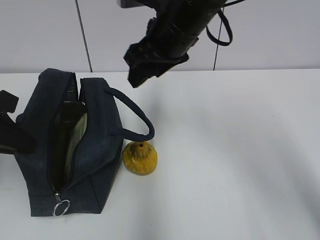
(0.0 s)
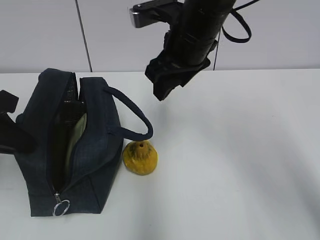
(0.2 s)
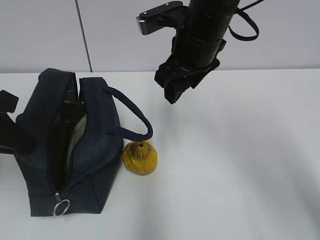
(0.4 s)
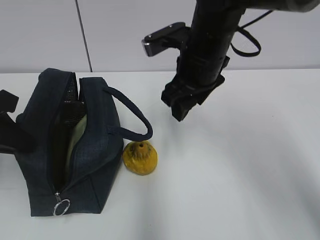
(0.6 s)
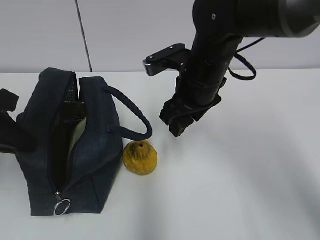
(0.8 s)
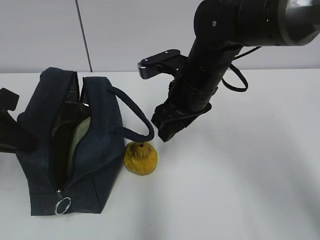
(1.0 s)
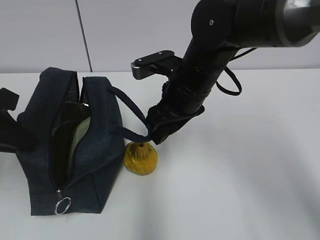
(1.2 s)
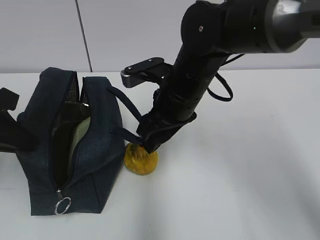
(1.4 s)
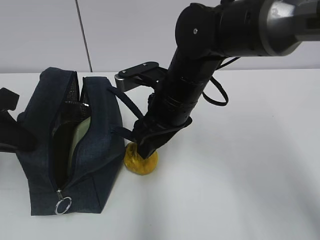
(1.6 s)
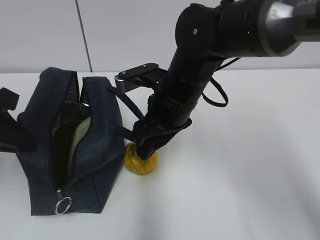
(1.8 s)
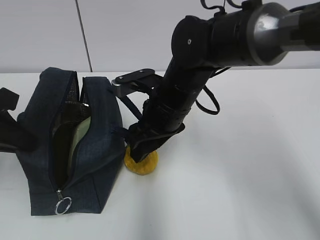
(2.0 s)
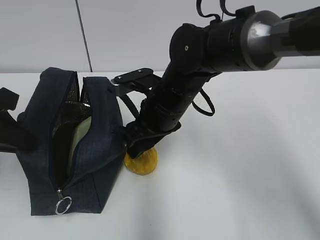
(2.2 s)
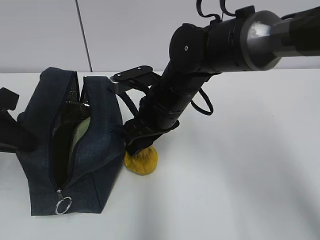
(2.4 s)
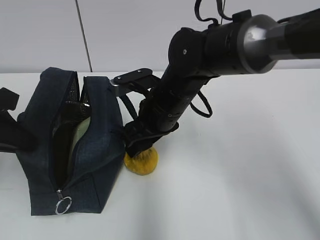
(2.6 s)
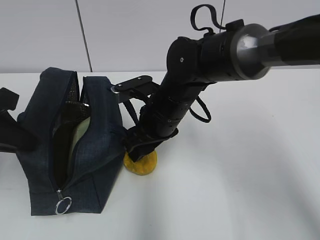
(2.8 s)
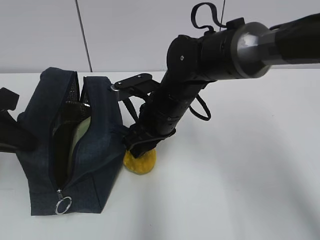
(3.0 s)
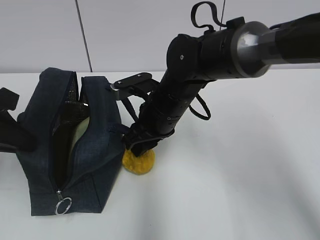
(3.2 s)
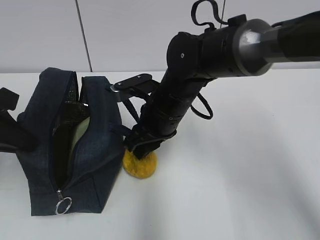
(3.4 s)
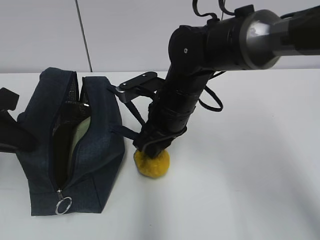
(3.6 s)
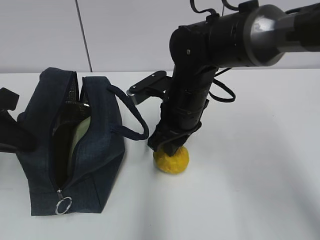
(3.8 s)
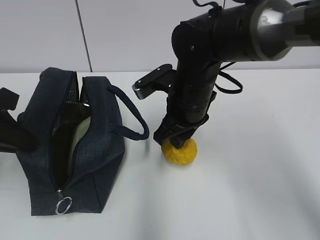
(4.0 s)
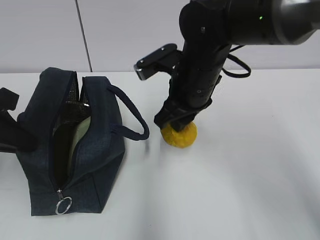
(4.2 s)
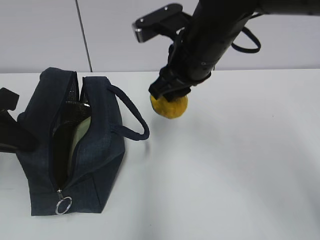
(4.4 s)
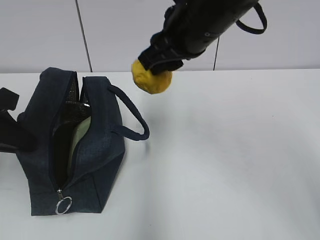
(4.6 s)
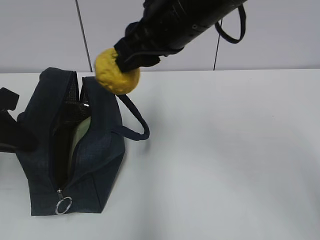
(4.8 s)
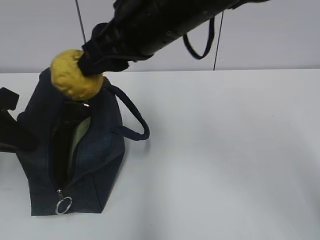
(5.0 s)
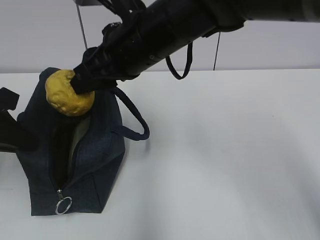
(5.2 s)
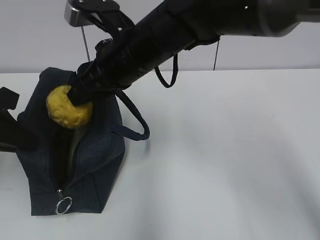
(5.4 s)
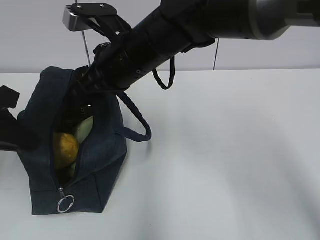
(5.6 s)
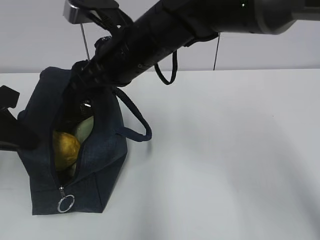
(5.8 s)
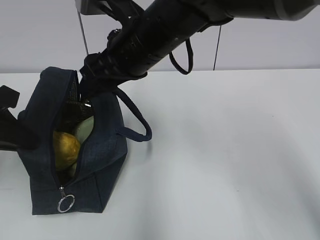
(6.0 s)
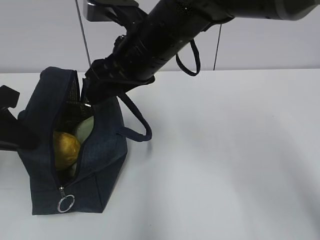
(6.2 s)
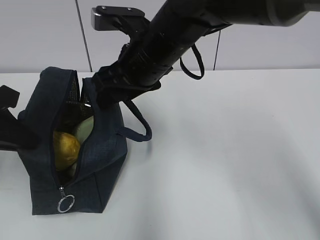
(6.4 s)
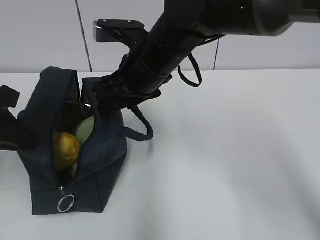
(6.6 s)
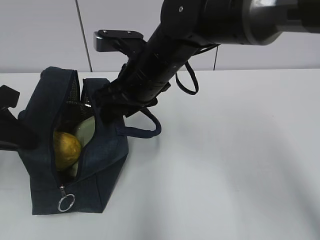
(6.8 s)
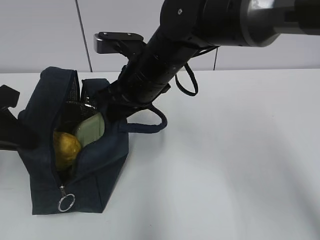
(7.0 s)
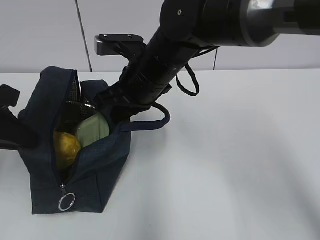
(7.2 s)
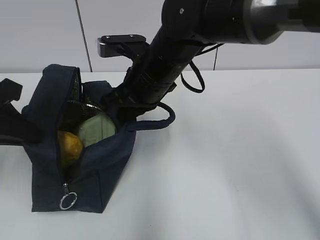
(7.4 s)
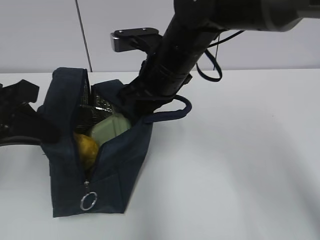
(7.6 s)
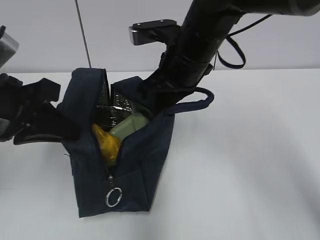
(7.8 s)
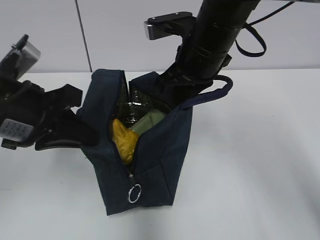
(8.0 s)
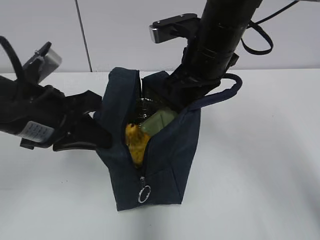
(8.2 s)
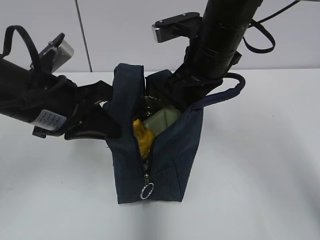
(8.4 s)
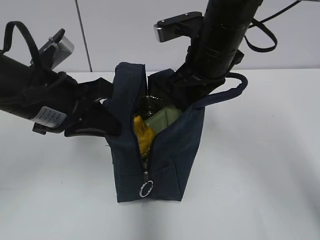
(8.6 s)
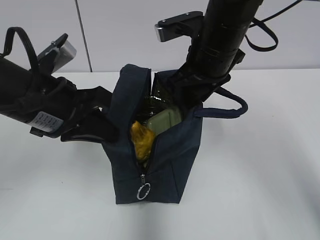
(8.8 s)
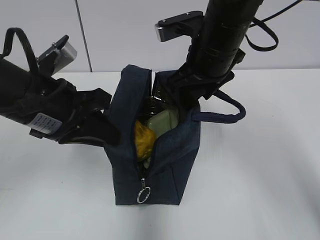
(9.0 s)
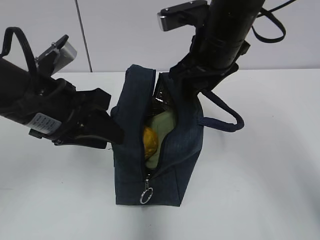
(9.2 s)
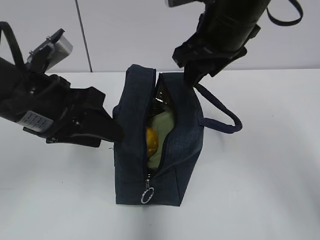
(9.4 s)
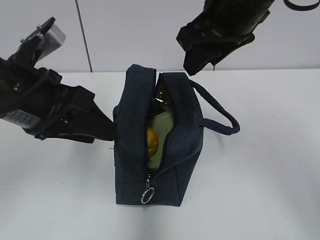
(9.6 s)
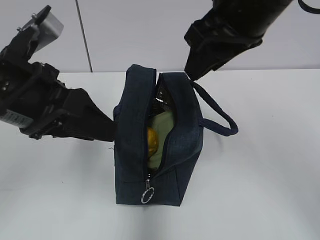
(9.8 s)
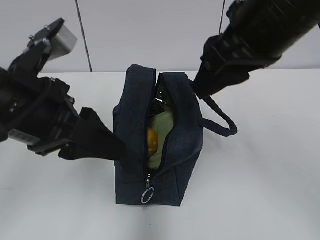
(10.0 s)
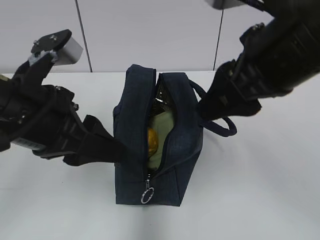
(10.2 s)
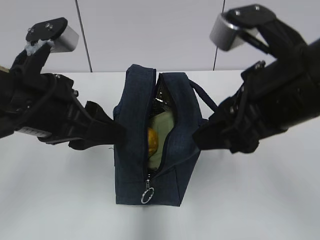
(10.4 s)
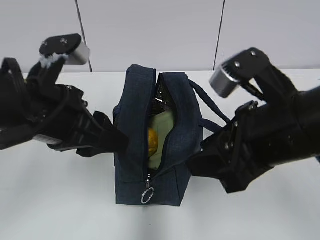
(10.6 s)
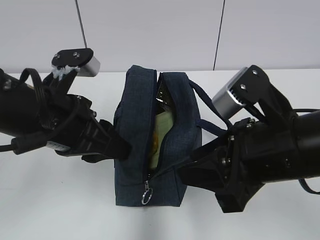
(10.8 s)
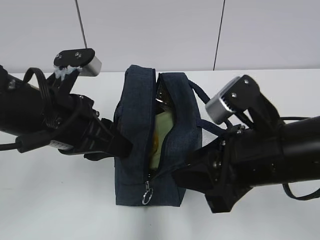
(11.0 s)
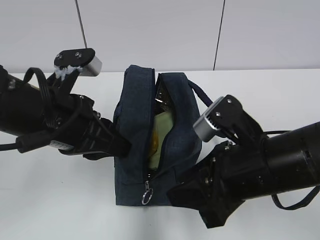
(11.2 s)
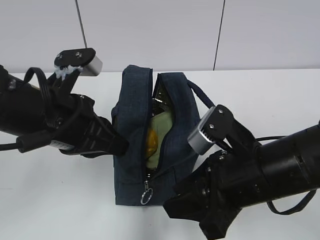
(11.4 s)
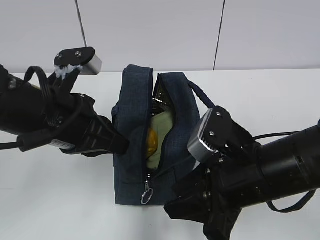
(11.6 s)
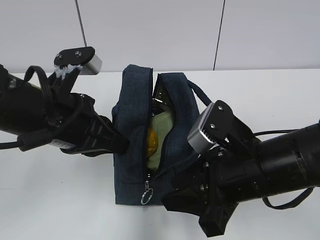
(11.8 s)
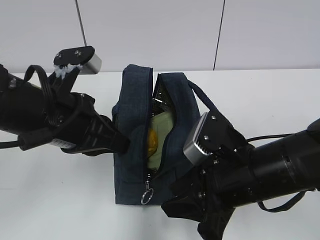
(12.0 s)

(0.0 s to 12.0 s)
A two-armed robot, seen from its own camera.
Step, 0.0 s - 3.4 s: Grab the pear with your right hand.
Step, 5.6 s - 7.2 s: Grab the lunch bag with your right hand.
Step, 7.4 s - 9.0 s: Move the lunch bag to the right.
0.0 s - 1.6 s: The right gripper is displaced downward by approximately 10 cm.
1.6 s - 3.0 s: There are only small adjustments of the grippers.
3.0 s - 4.4 s: The right gripper is displaced upward by some 10 cm.
4.4 s - 6.0 s: The right gripper shifts about 5 cm to the left, and opens its fingers.
6.0 s - 7.6 s: The right gripper moves roughly 5 cm, and closes its fingers.
7.6 s - 9.0 s: Both grippers move to the right, about 5 cm. The right gripper opens up.
9.0 s - 10.4 s: The left gripper opens; the right gripper goes some 15 cm backward.
10.4 s - 12.0 s: The left gripper closes up. The right gripper shifts about 10 cm downward.

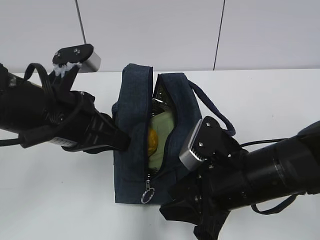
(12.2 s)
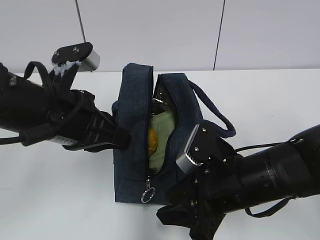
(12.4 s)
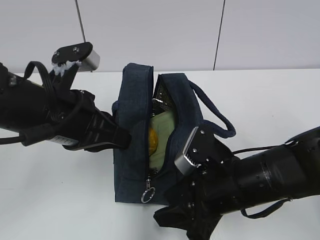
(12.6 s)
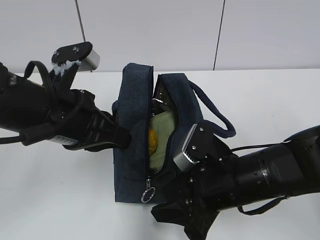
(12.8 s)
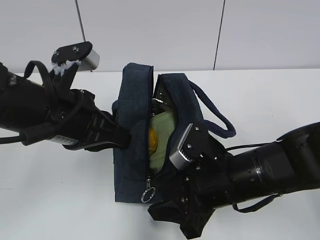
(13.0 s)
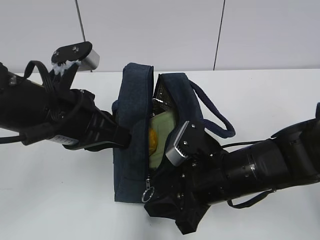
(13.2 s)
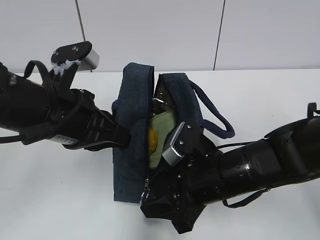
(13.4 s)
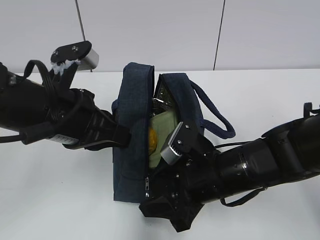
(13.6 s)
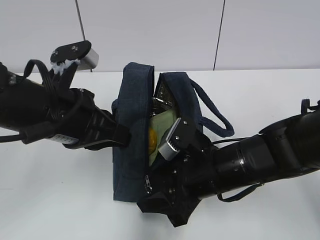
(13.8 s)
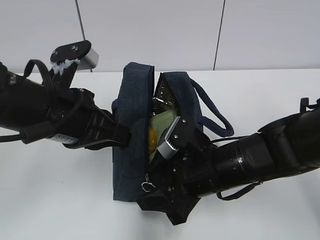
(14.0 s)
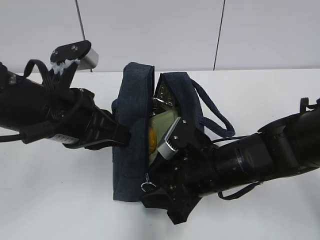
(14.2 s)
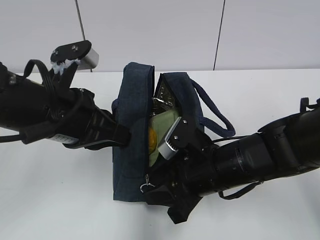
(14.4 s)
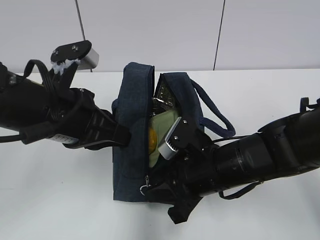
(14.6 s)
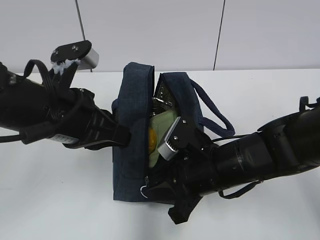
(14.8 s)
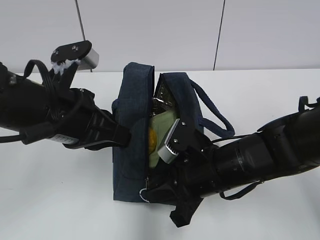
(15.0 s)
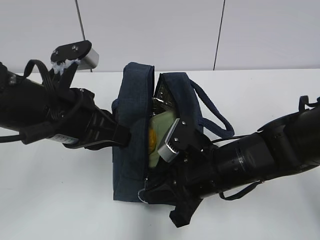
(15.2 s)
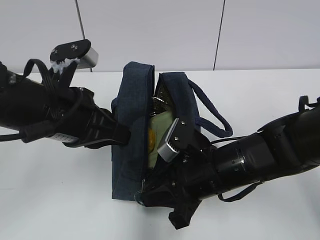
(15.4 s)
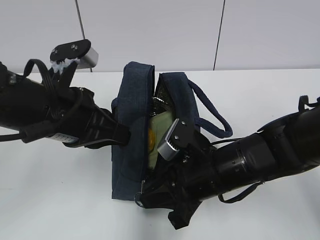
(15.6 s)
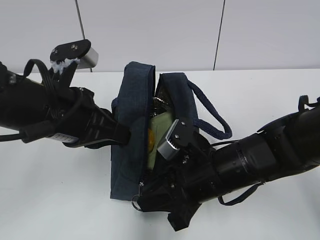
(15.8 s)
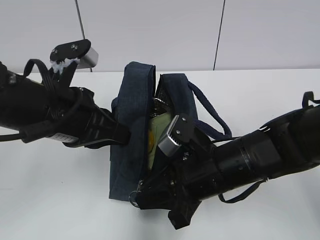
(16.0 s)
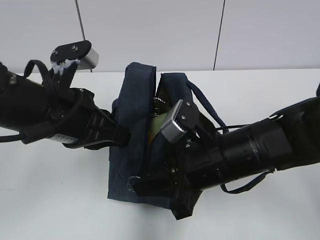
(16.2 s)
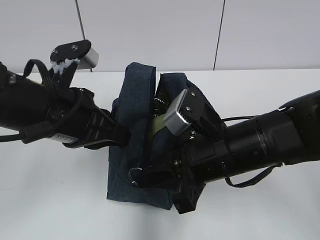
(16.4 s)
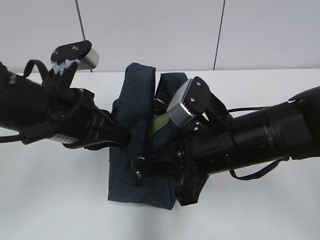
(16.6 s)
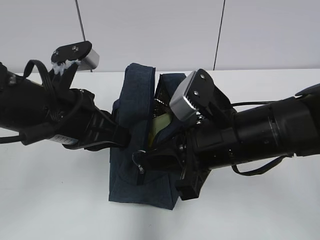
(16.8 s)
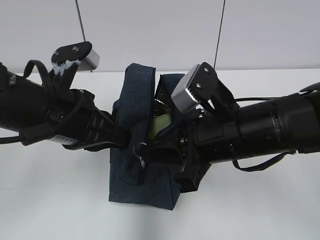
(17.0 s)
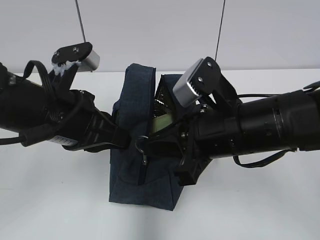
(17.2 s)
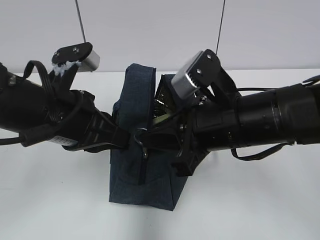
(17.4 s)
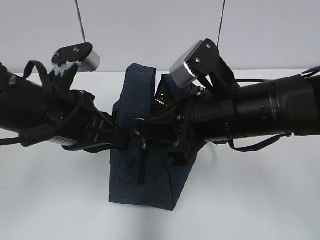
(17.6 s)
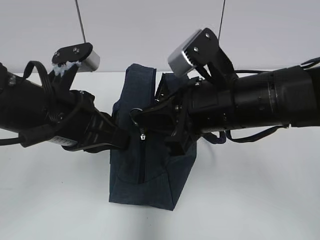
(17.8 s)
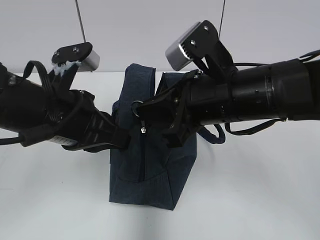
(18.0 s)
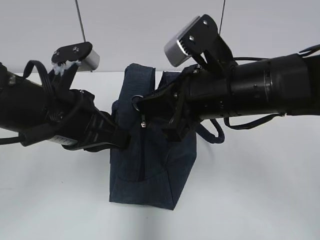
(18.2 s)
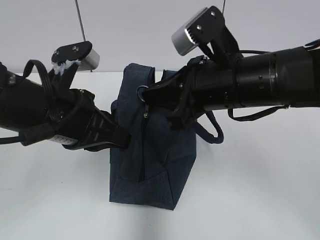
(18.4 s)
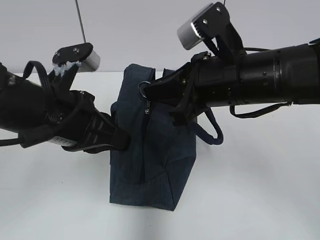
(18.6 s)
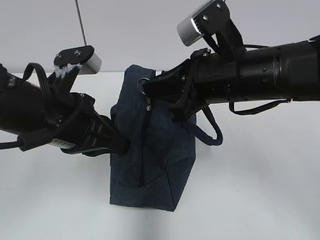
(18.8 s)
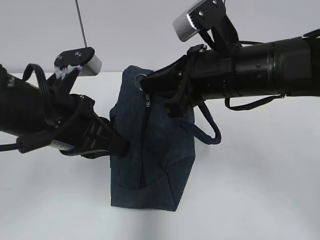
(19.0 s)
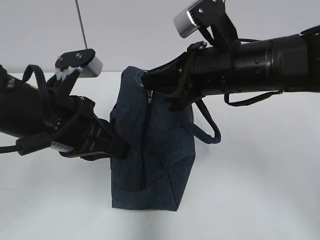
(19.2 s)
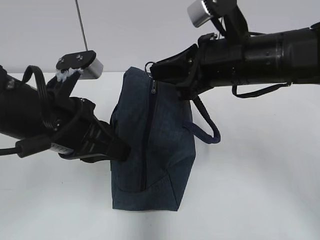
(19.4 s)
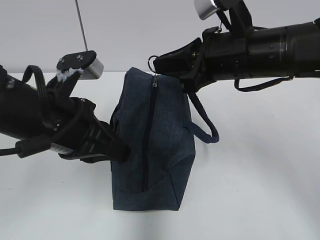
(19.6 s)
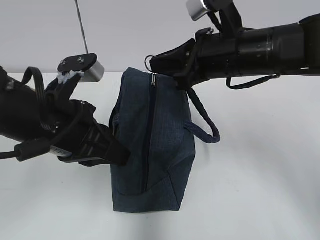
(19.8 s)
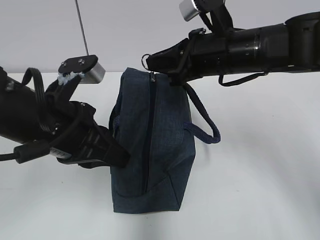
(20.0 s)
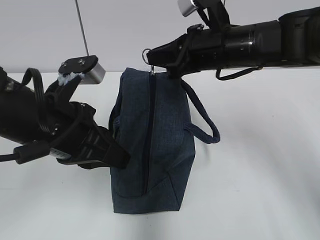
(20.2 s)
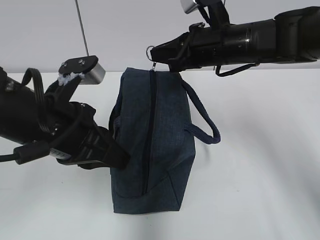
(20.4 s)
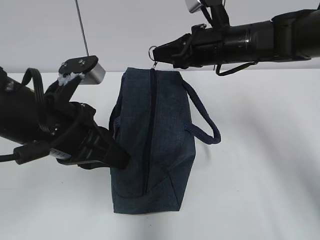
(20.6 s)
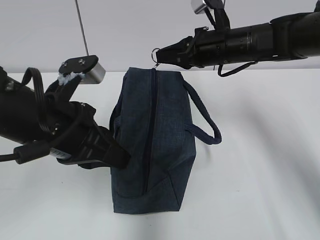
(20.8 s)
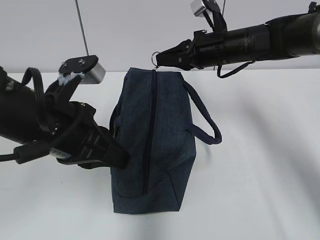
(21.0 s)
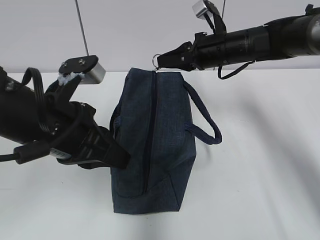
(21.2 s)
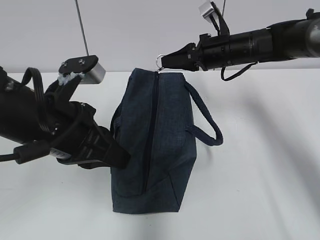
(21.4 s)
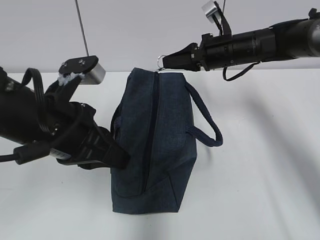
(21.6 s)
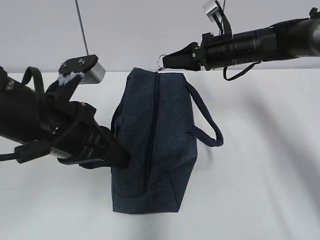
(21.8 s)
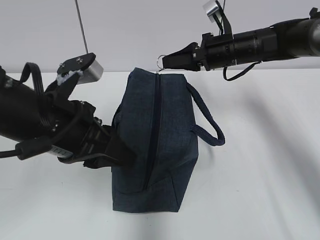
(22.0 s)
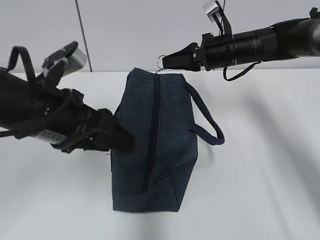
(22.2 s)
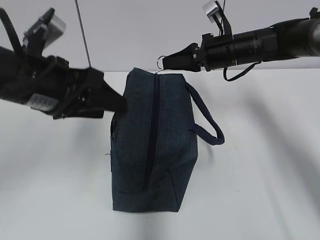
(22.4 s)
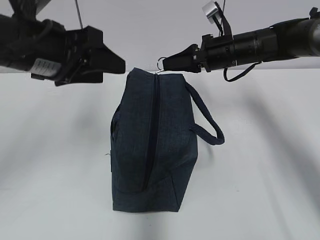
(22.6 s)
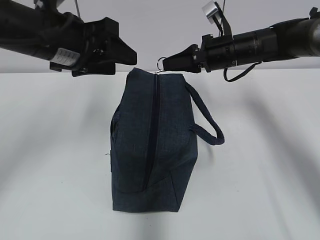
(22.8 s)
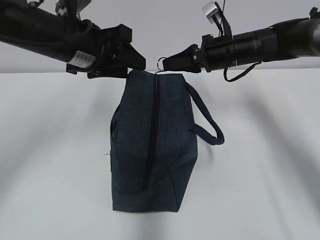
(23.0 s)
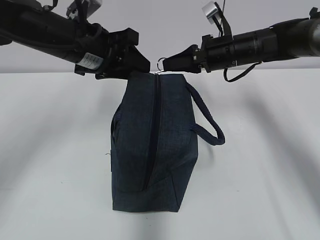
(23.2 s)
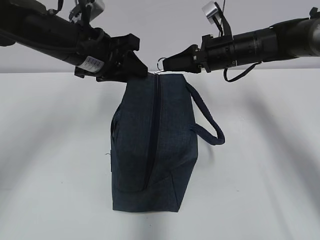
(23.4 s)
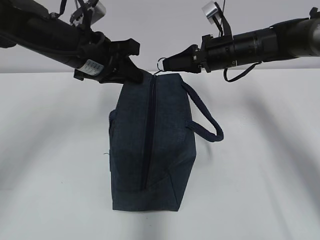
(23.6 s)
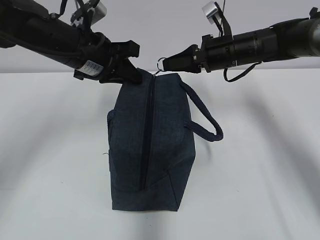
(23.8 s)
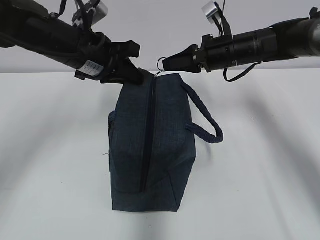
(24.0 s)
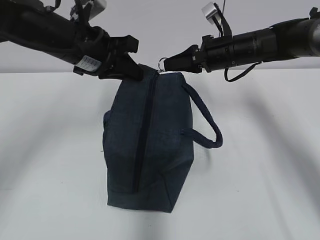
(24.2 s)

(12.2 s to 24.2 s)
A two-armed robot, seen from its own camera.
12.2 s - 13.8 s: The right gripper ends up roughly 5 cm from where it was.
13.8 s - 15.2 s: The right gripper closes its fingers.
15.2 s - 16.6 s: The right gripper shifts roughly 5 cm upward.
16.6 s - 18.2 s: The right gripper heads upward, covering roughly 5 cm.
18.2 s - 19.8 s: The right gripper shifts about 5 cm forward.
19.8 s - 21.2 s: The right gripper shifts about 15 cm forward and downward.
21.2 s - 22.6 s: The left gripper moves forward and upward, roughly 10 cm, and opens.
22.6 s - 24.2 s: The left gripper goes roughly 5 cm forward, and closes up.
